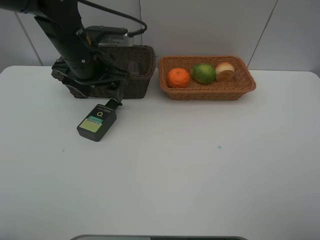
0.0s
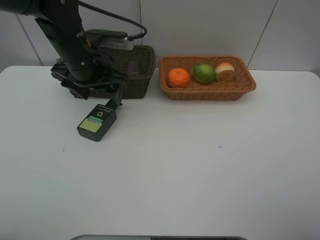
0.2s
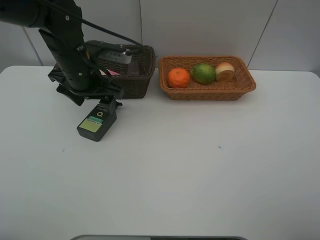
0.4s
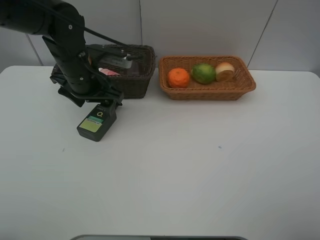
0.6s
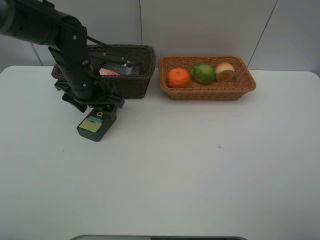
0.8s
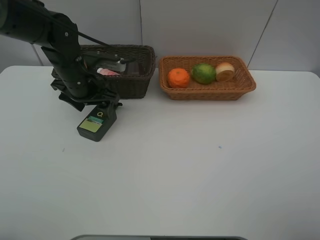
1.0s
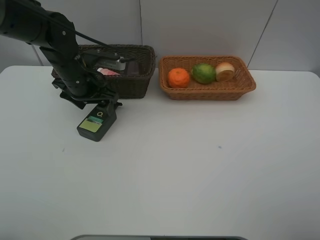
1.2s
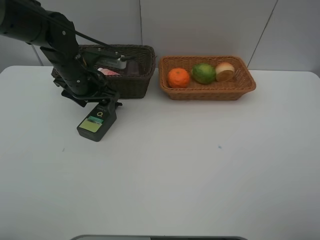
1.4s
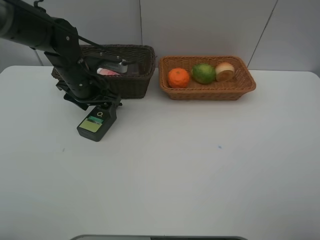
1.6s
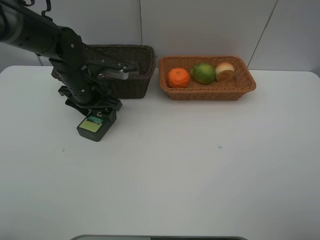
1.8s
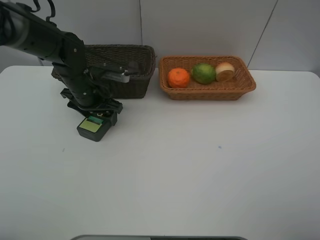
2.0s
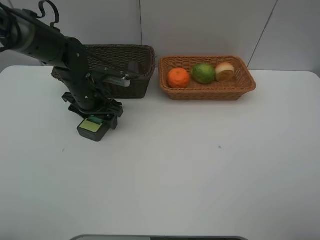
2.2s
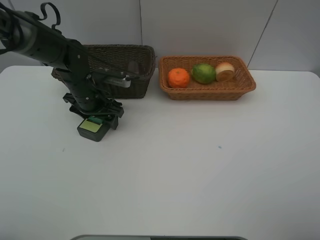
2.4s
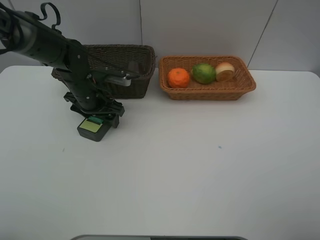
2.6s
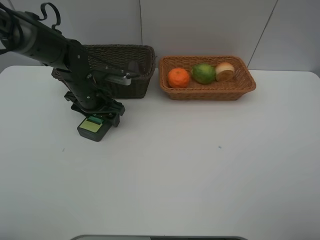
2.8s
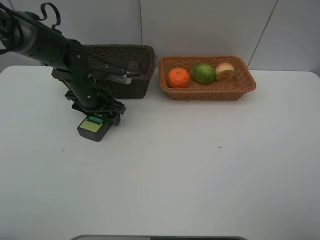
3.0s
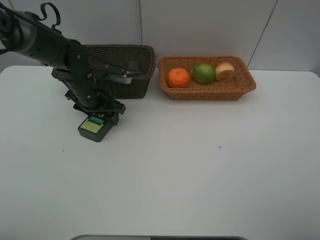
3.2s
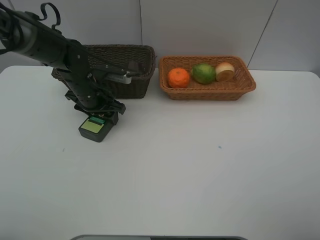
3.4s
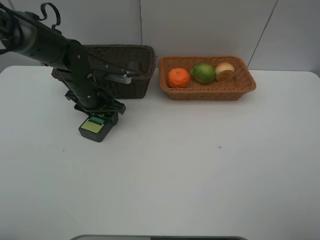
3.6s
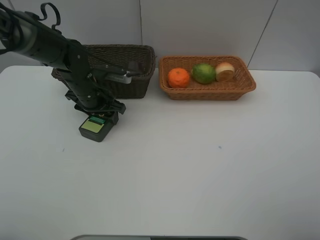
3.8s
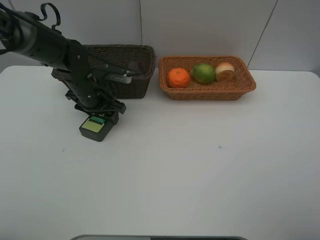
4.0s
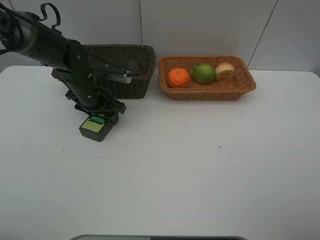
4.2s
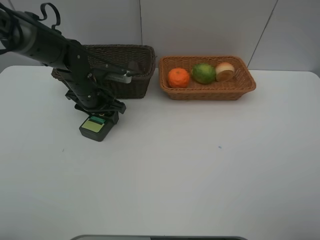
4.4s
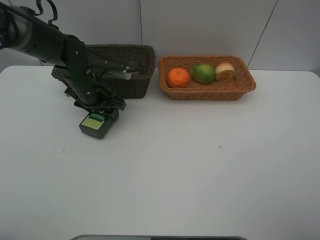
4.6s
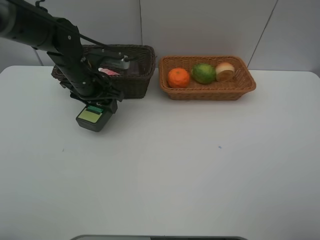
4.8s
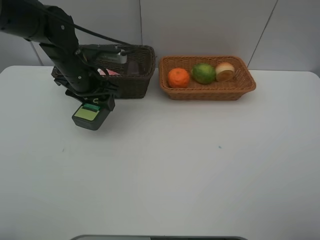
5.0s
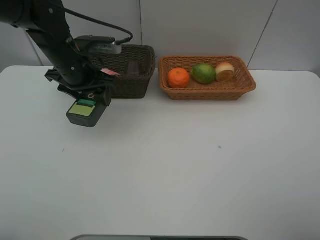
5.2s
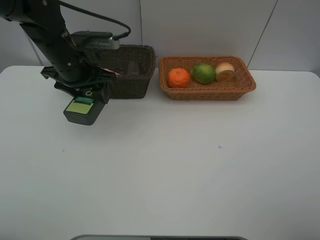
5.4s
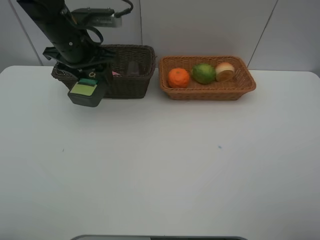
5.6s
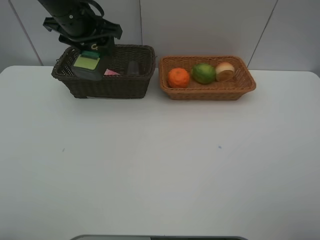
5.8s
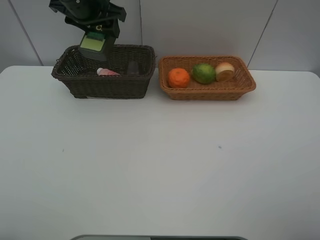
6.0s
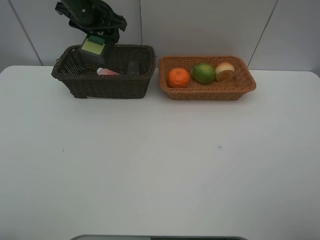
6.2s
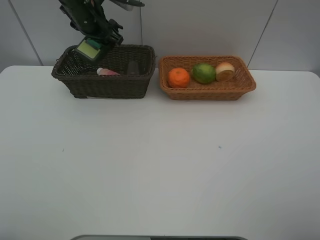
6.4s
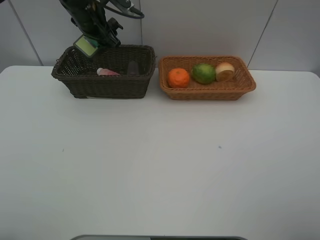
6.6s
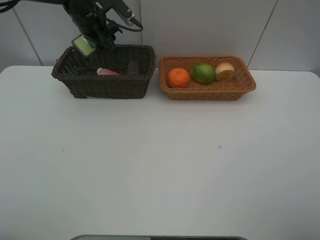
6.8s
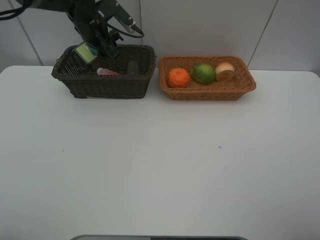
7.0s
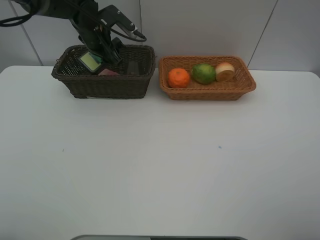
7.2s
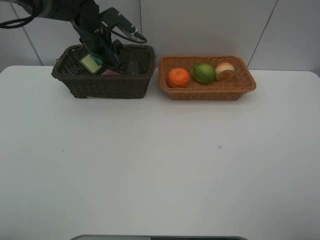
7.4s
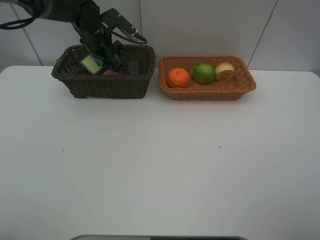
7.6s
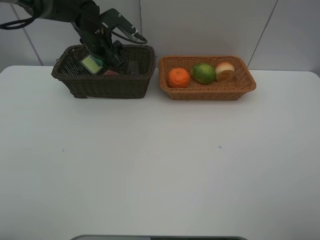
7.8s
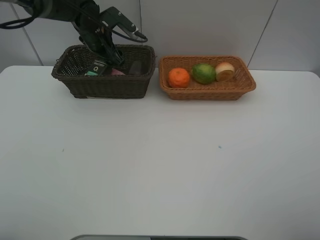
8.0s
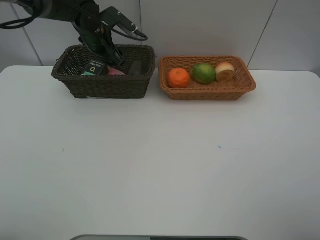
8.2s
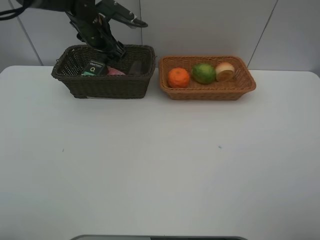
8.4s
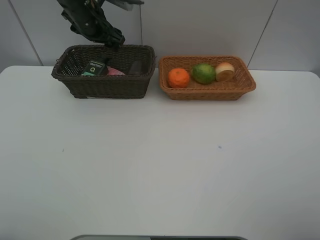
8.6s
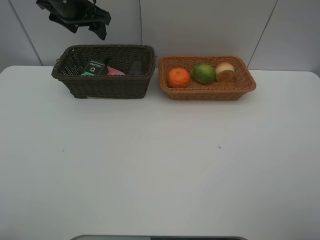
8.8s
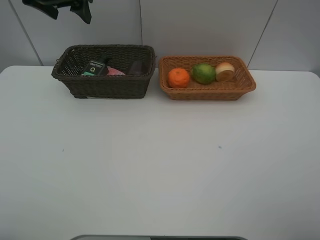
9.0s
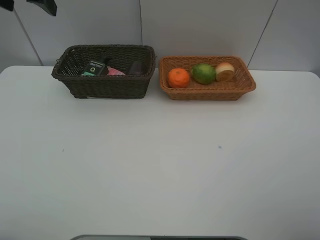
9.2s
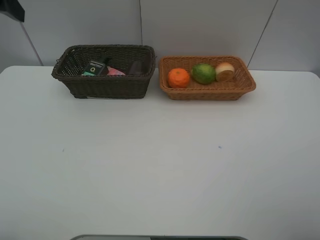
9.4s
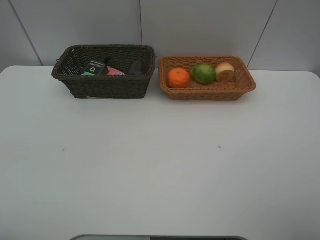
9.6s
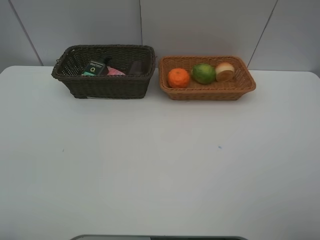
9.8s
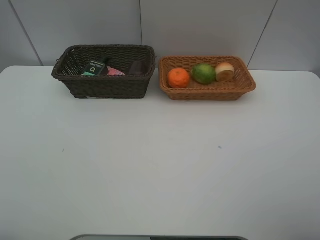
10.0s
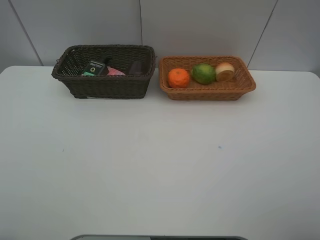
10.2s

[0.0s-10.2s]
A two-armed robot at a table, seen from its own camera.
Task of the whole recording: place multiple objects separately in different baskets.
0.0s to 1.4s: The left gripper goes approximately 5 cm downward.
1.4s to 3.0s: The left gripper goes about 5 cm downward.
3.0s to 4.4s: Both grippers stay about where they are.
4.4s to 5.8s: The left gripper is displaced upward by roughly 15 cm.
5.8s to 7.2s: The left gripper travels downward and forward by about 15 cm.
7.2s to 8.8s: The left gripper travels upward by some 10 cm.
8.8s to 10.2s: The left gripper heads backward, covering approximately 35 cm.

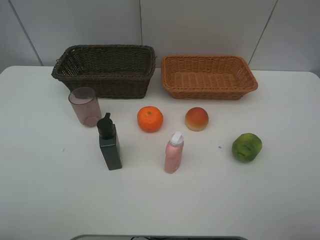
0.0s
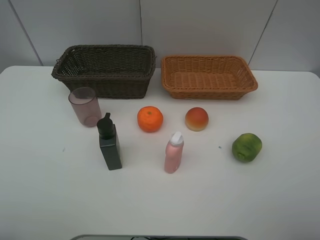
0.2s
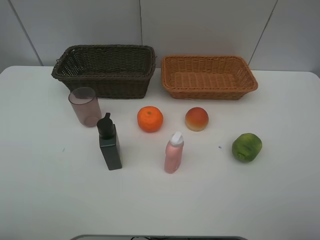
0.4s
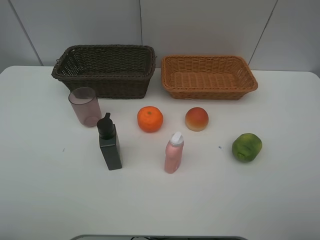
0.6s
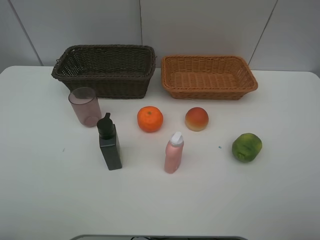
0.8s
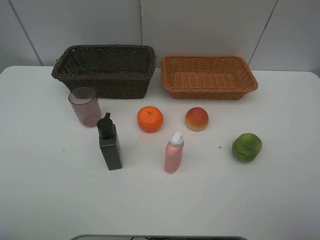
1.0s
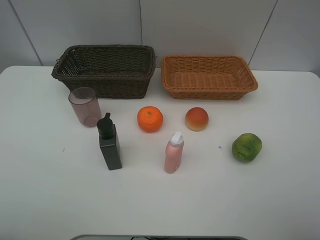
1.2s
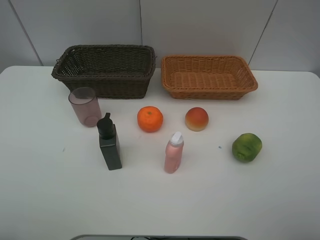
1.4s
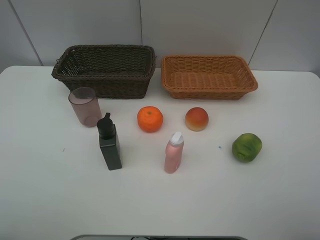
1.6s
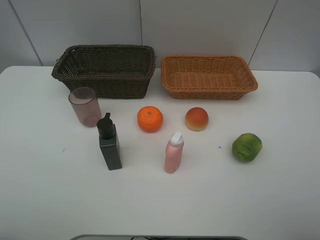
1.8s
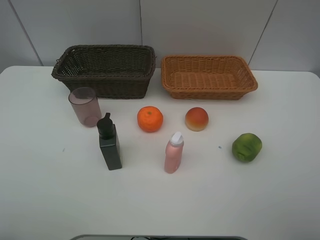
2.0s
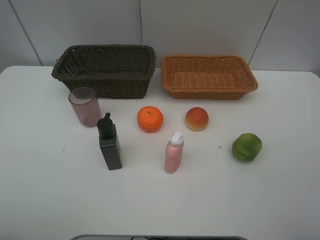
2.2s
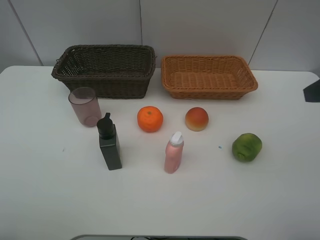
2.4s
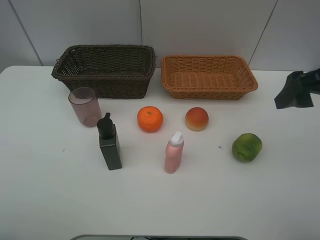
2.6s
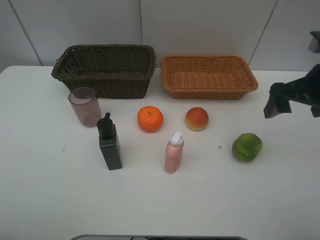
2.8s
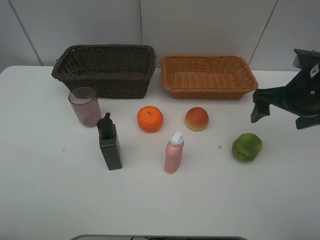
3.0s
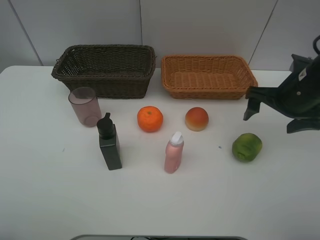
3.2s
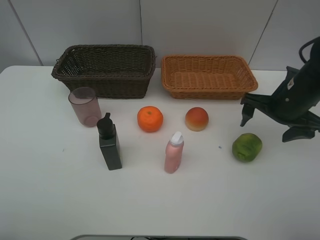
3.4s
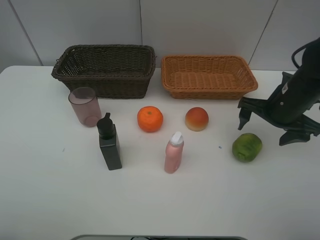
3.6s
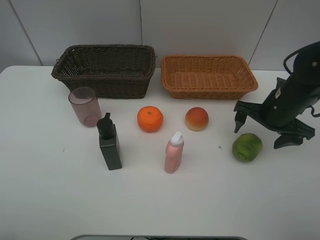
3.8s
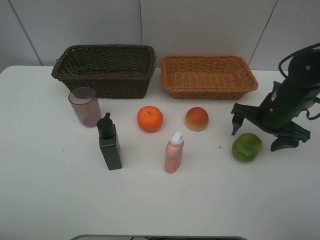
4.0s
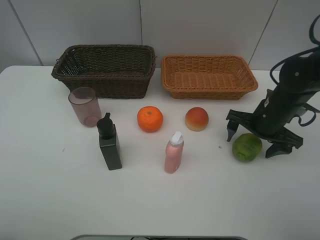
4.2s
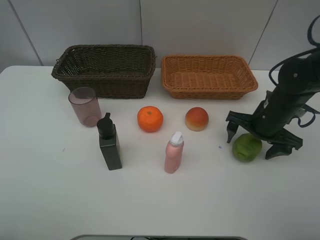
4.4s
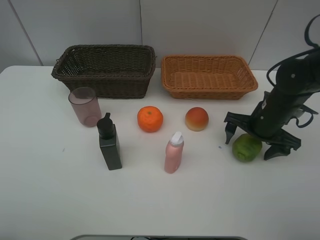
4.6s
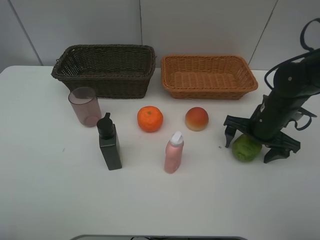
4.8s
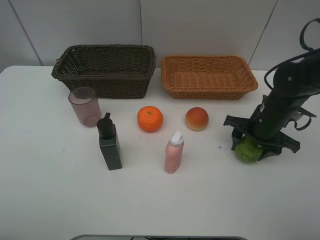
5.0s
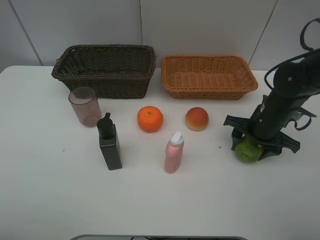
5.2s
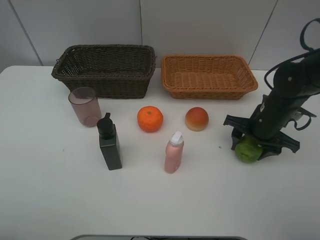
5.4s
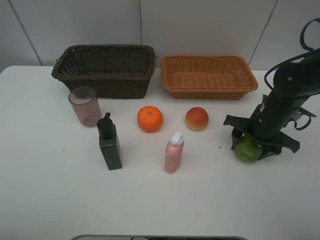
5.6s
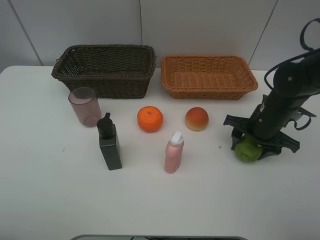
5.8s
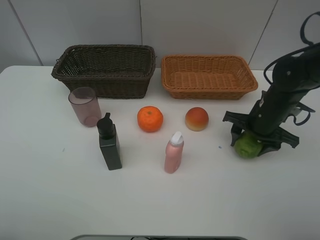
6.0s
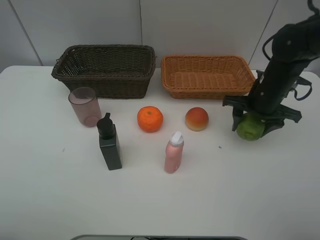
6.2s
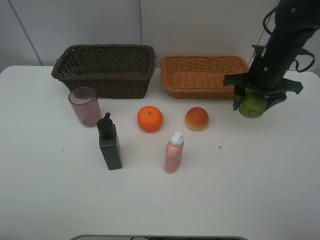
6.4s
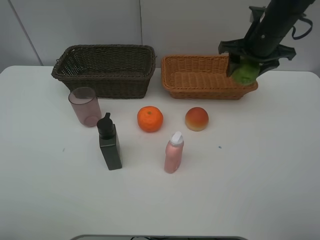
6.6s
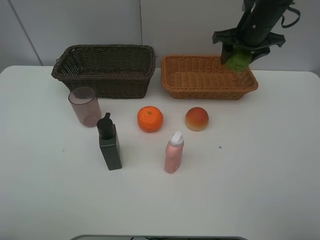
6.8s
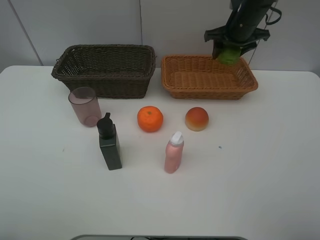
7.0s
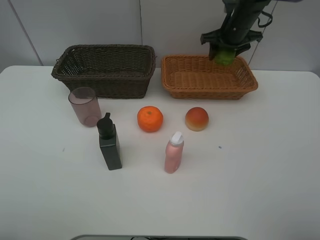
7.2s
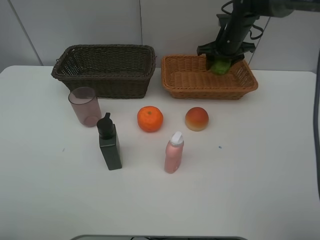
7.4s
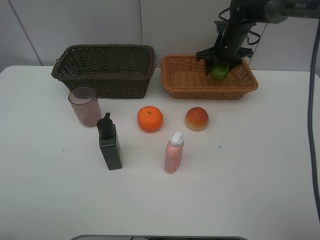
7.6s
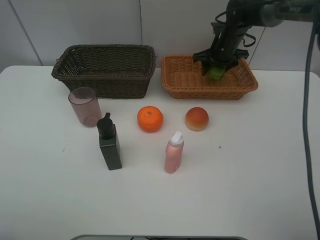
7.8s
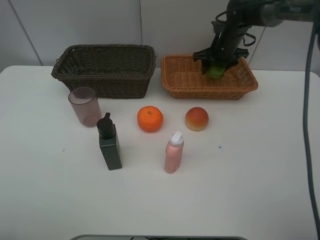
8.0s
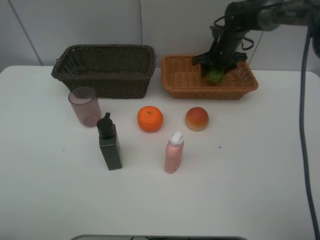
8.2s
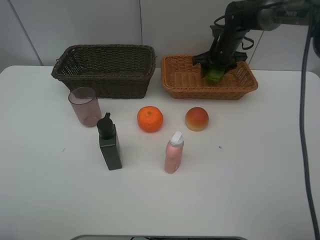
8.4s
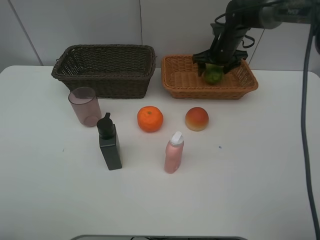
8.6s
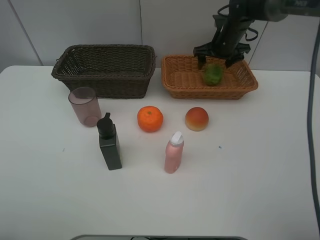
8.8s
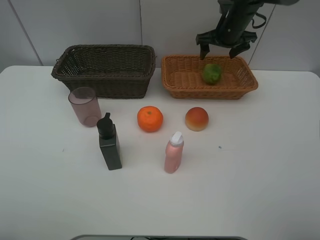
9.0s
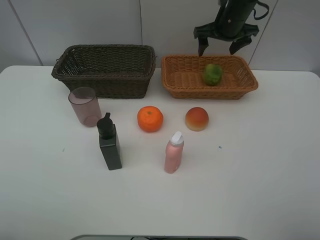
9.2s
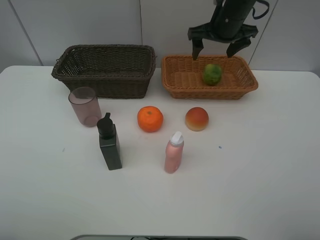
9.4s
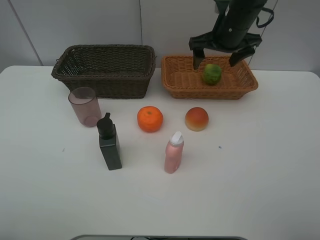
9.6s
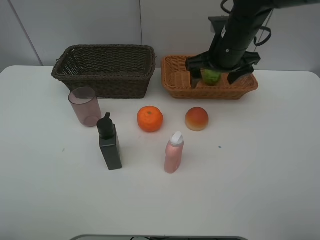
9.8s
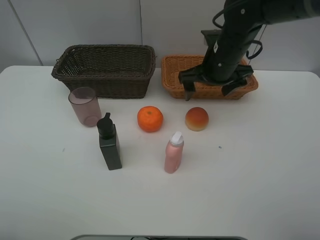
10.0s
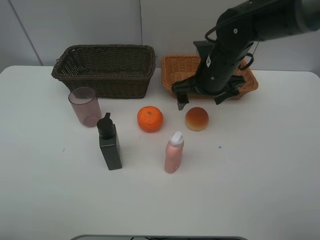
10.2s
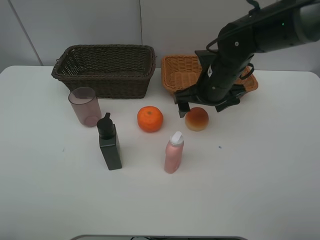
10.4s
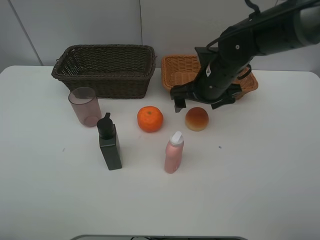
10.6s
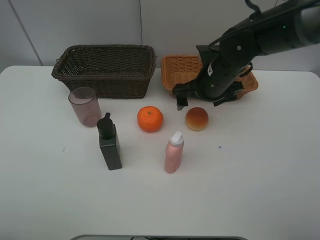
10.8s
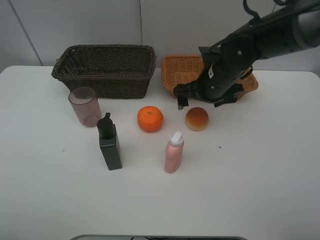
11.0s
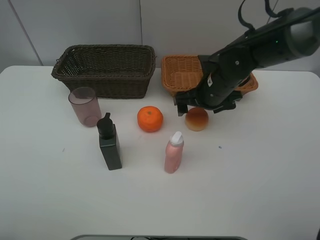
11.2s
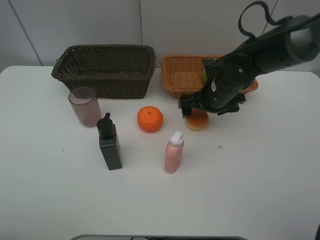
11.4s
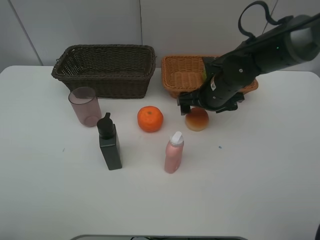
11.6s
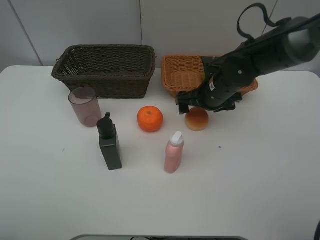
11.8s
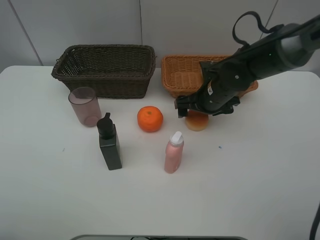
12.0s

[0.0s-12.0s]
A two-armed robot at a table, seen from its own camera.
Task of the whole recording: place multiple objects separately in different baskets.
0.0s to 1.6s: The two grippers keep their place.
1.6s to 3.0s: The right gripper heads forward, covering approximately 25 cm.
3.0s to 4.4s: The right gripper moves downward, roughly 10 cm.
4.4s to 6.0s: The right gripper closes its fingers.
6.0s to 7.6s: The right gripper goes some 20 cm forward.
7.6s to 9.0s: The right gripper opens up.
9.0s to 10.4s: The right gripper is displaced backward by roughly 15 cm.
10.4s to 12.0s: The right gripper moves approximately 5 cm.
